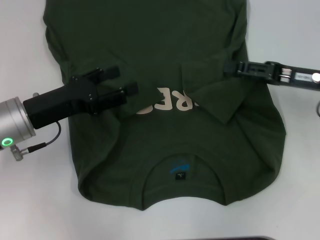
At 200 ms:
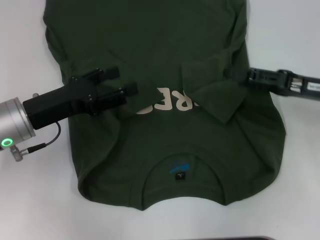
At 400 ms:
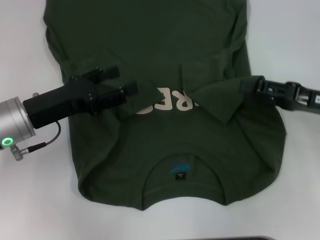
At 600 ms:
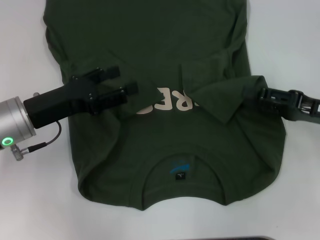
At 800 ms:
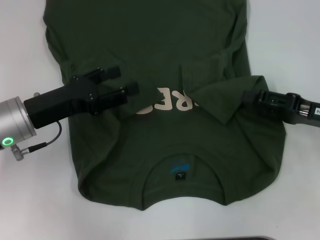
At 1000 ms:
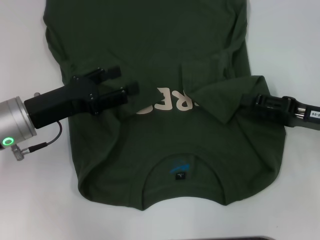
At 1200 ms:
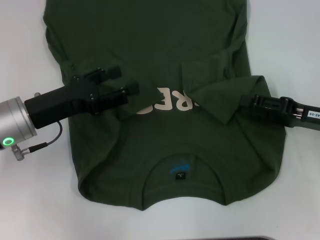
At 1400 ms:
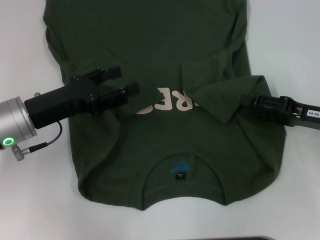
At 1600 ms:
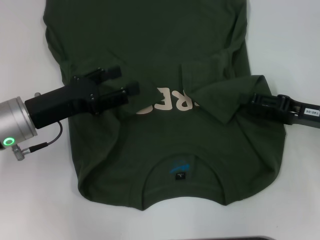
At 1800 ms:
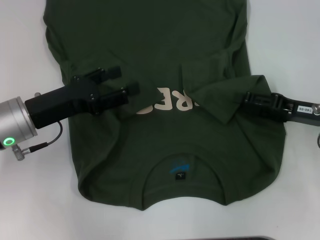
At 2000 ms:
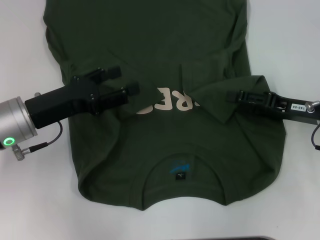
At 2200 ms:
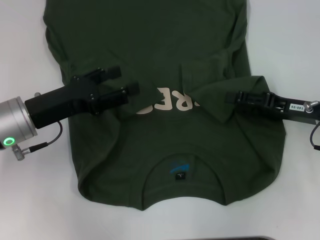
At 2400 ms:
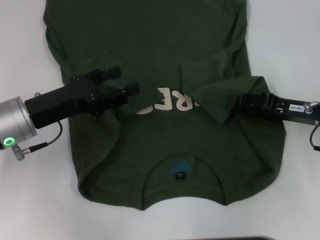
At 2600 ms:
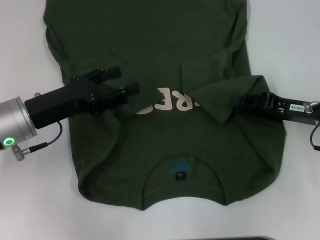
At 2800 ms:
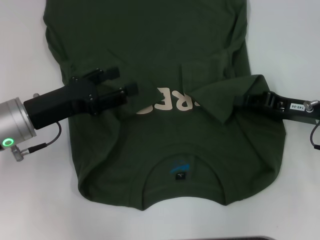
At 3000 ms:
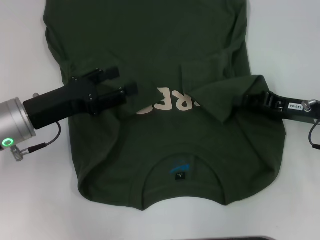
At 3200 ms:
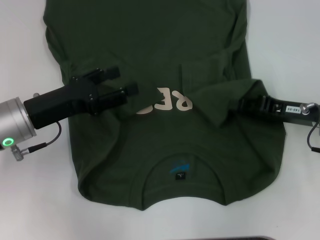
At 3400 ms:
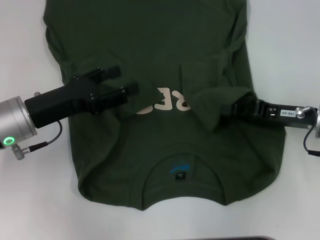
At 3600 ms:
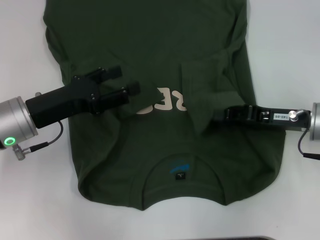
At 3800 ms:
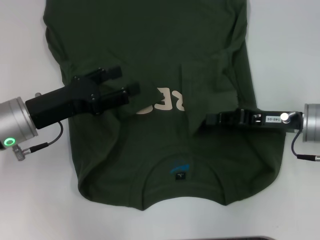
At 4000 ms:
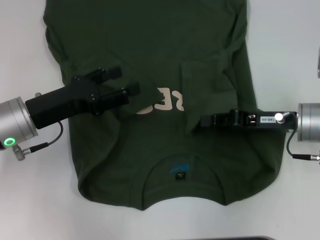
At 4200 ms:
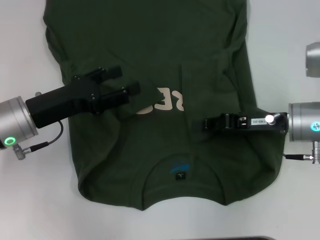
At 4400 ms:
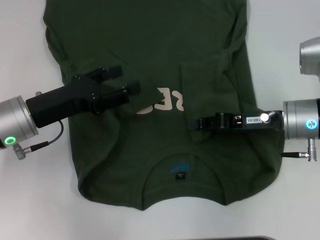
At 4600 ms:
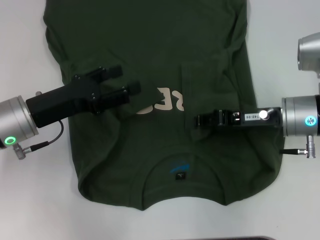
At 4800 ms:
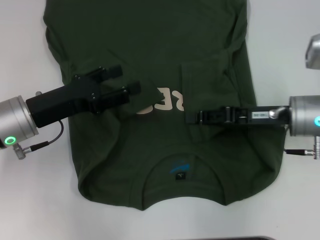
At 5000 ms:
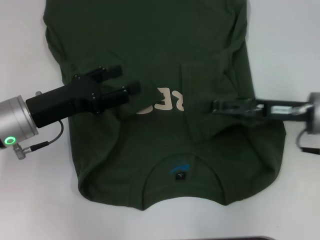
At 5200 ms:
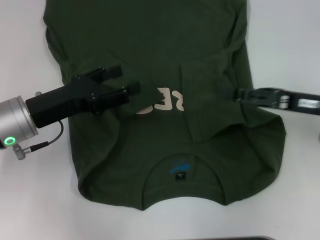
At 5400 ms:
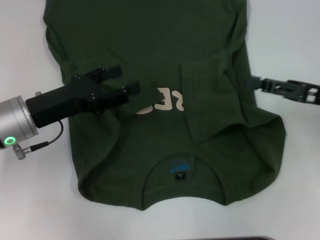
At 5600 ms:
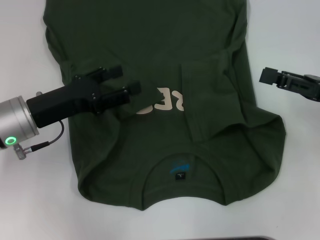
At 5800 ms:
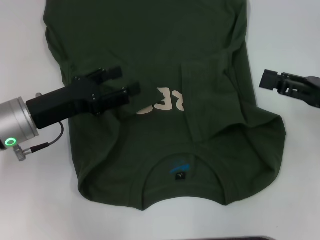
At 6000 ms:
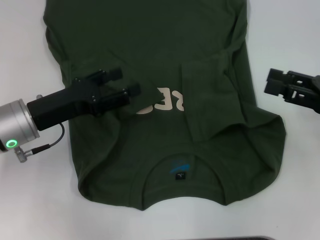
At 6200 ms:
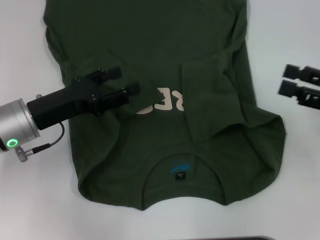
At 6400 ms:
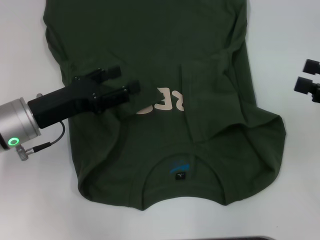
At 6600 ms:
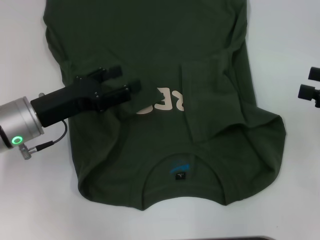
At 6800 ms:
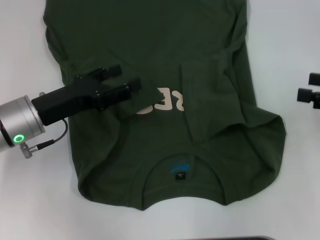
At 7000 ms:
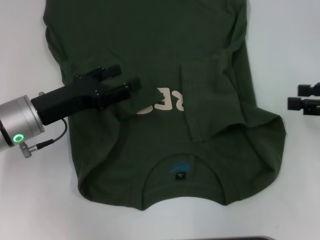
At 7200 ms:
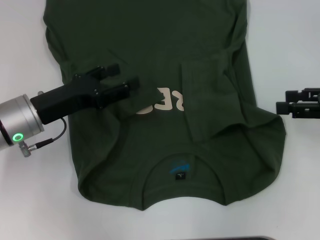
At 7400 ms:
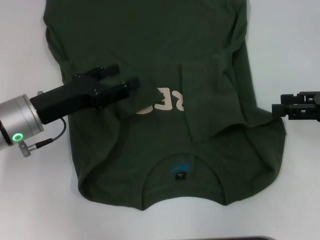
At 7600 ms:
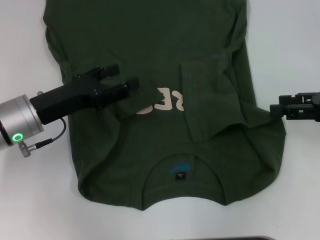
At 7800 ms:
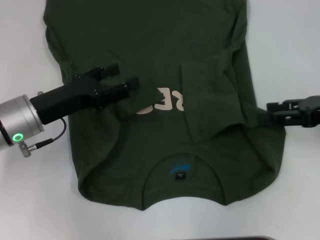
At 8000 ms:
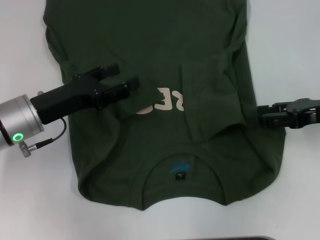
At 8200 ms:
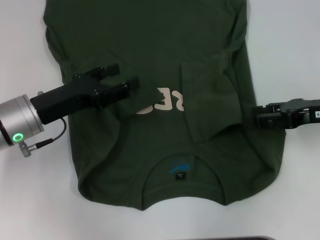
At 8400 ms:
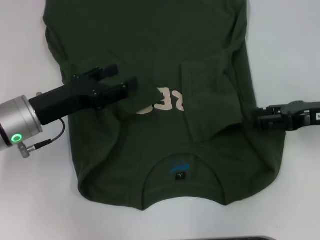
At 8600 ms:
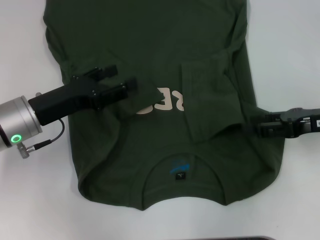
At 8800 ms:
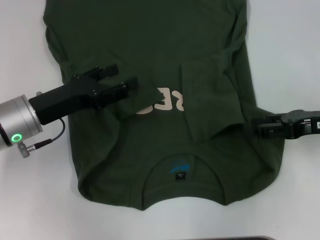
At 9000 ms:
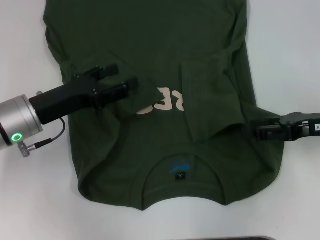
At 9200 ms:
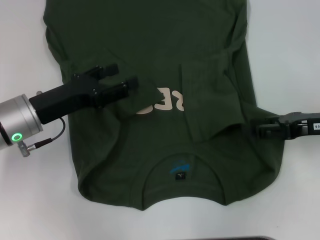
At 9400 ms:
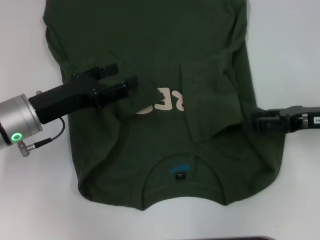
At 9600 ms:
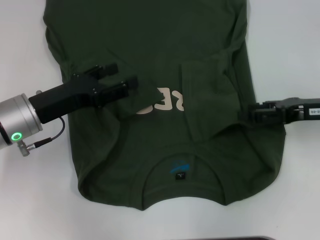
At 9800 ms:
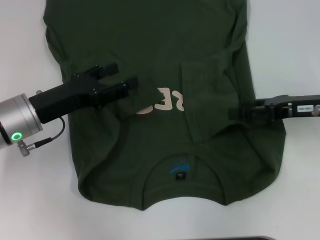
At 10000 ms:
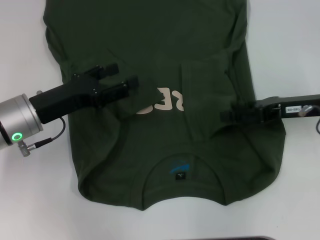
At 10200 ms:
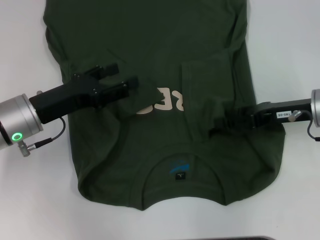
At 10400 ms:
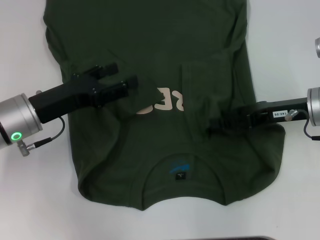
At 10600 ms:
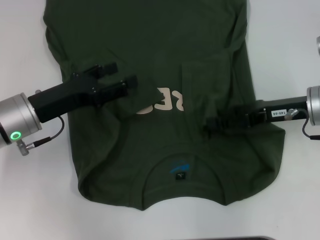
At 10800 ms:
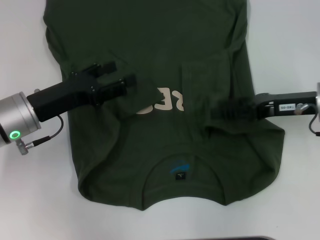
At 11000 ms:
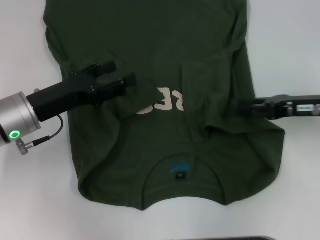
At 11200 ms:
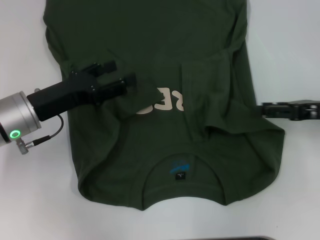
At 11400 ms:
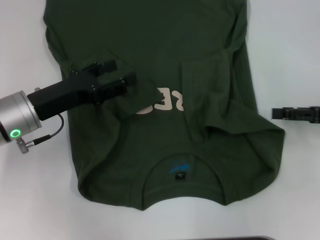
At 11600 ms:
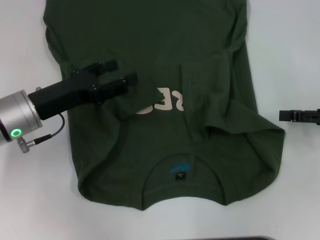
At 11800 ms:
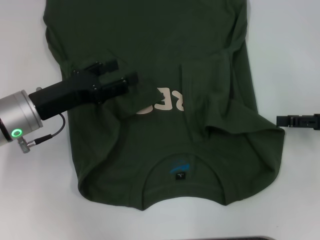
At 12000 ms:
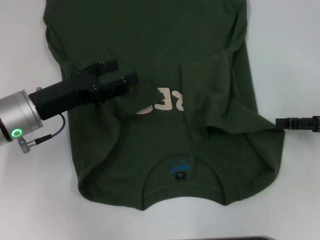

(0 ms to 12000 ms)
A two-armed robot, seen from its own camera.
Step, 0 ms - 5000 ms: Fold the bottom right sleeve with your right hand.
0 ms - 1600 ms: The right gripper shifts by approximately 5 cm.
1600 ms - 3000 ms: The right gripper closes up.
3000 ms - 4400 ms: The right gripper heads to the left, covering about 5 cm.
4400 ms - 6000 ms: The right gripper travels to the right, backward and upward by roughly 15 cm, and opens.
7600 ms - 9000 ms: The grippers move only a little.
9000 ms - 10400 ms: The right gripper shifts by about 5 cm.
10400 ms - 12000 ms: The right gripper goes roughly 10 cm to the right.

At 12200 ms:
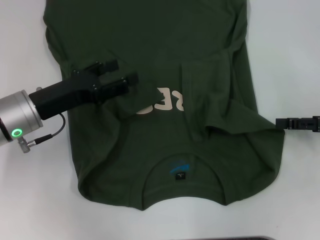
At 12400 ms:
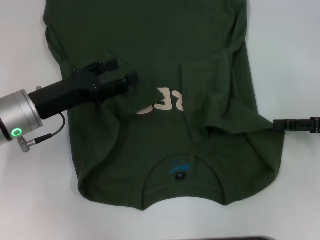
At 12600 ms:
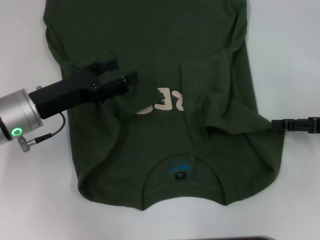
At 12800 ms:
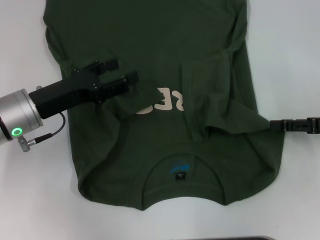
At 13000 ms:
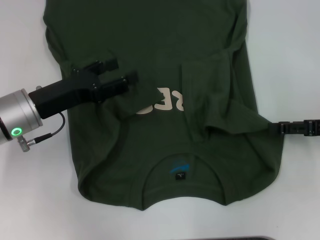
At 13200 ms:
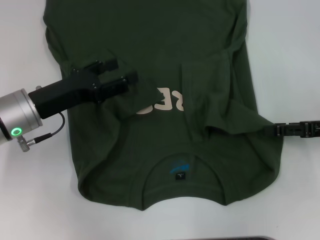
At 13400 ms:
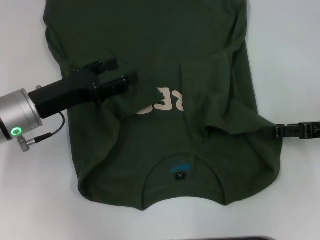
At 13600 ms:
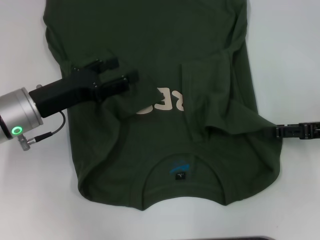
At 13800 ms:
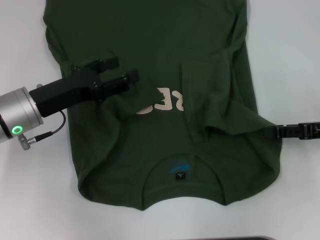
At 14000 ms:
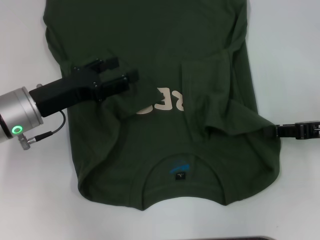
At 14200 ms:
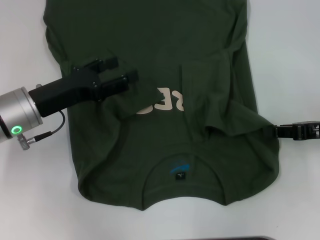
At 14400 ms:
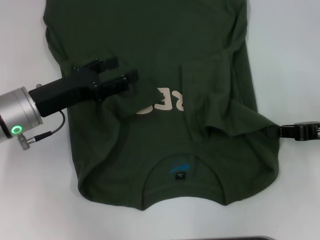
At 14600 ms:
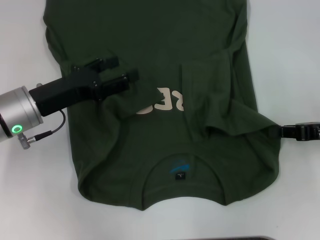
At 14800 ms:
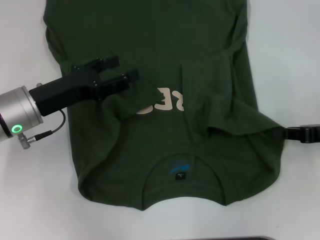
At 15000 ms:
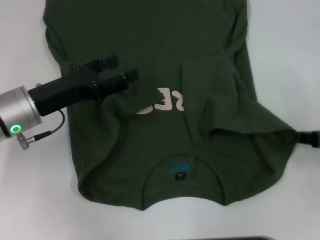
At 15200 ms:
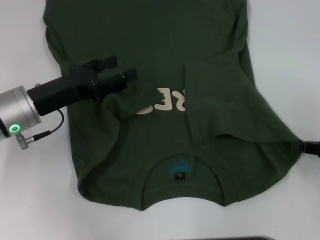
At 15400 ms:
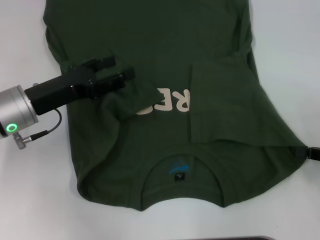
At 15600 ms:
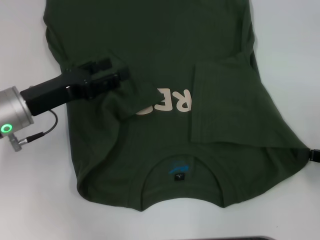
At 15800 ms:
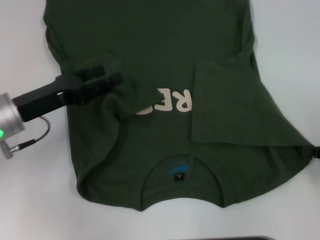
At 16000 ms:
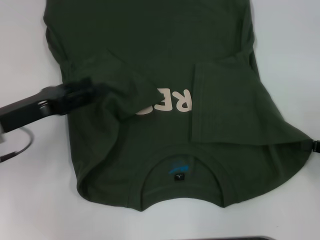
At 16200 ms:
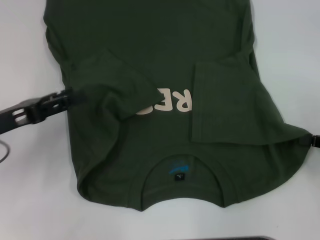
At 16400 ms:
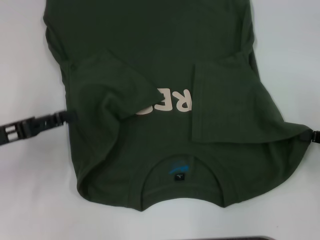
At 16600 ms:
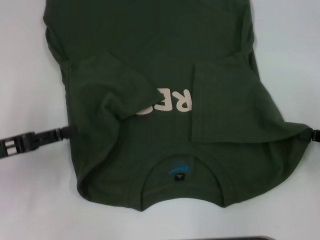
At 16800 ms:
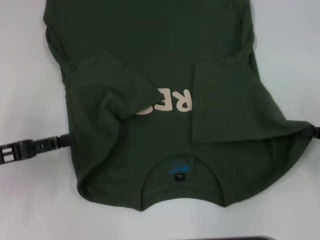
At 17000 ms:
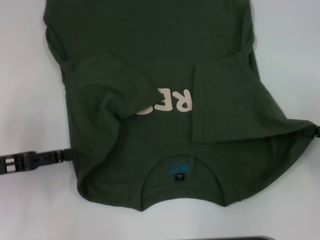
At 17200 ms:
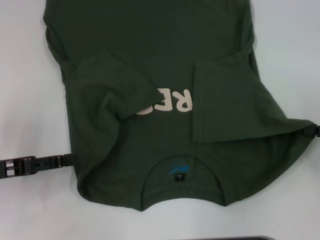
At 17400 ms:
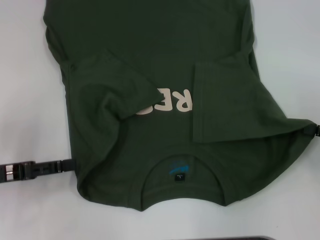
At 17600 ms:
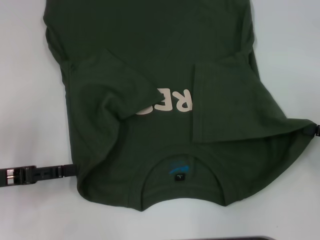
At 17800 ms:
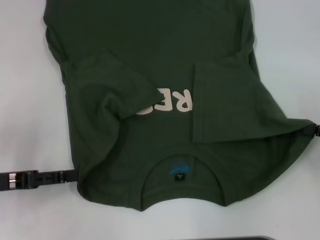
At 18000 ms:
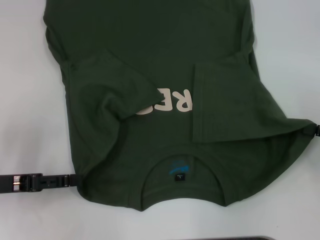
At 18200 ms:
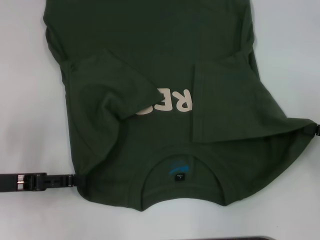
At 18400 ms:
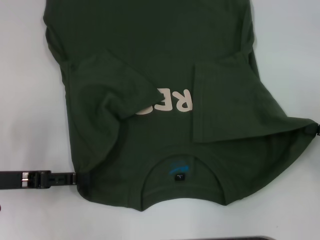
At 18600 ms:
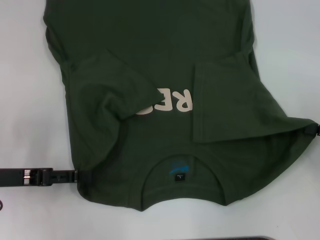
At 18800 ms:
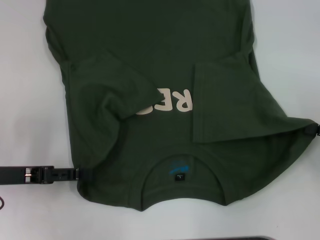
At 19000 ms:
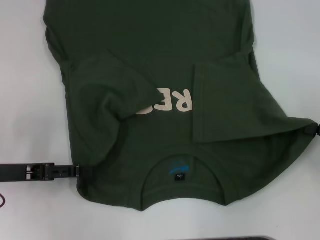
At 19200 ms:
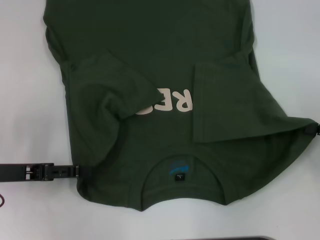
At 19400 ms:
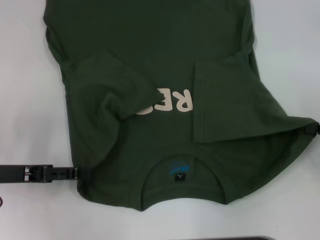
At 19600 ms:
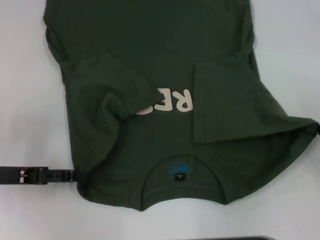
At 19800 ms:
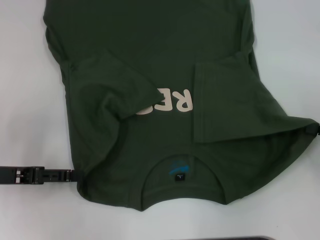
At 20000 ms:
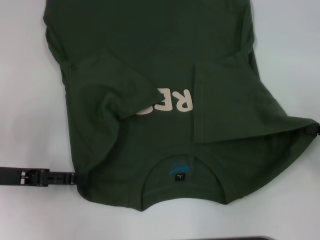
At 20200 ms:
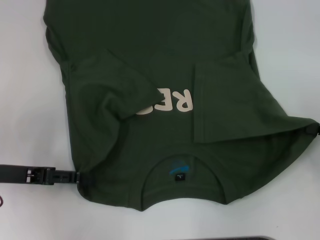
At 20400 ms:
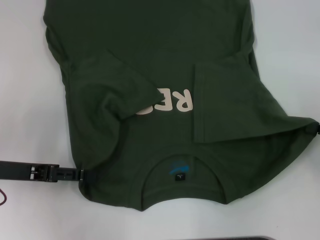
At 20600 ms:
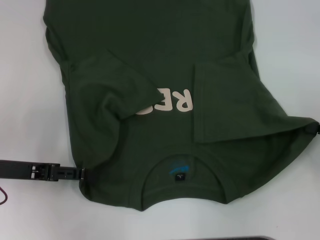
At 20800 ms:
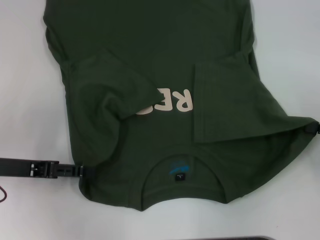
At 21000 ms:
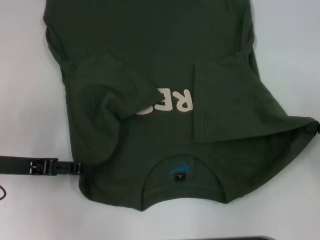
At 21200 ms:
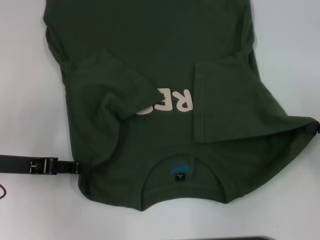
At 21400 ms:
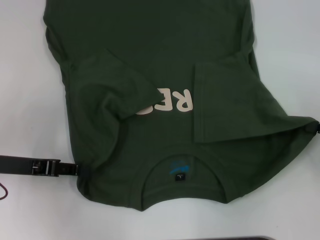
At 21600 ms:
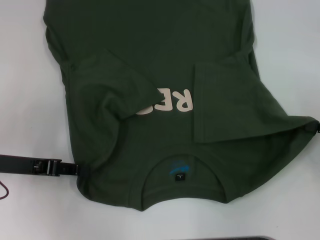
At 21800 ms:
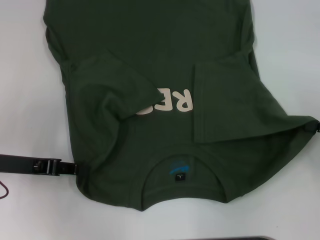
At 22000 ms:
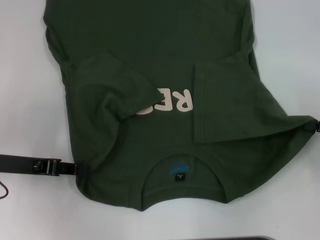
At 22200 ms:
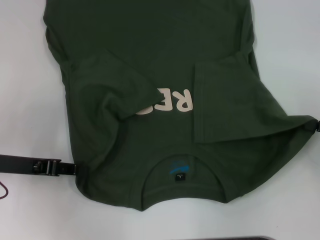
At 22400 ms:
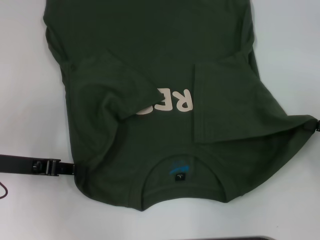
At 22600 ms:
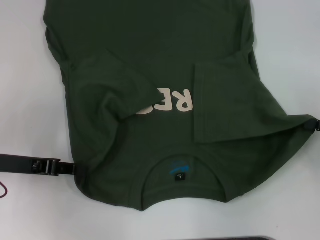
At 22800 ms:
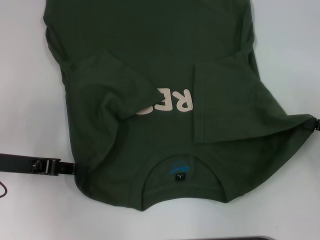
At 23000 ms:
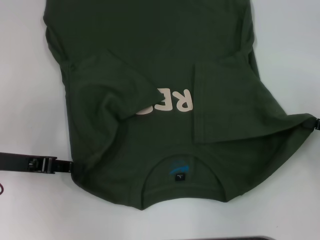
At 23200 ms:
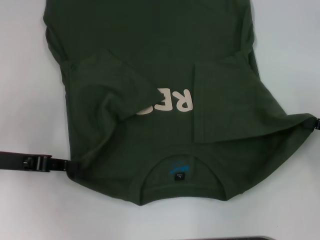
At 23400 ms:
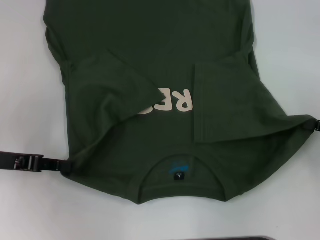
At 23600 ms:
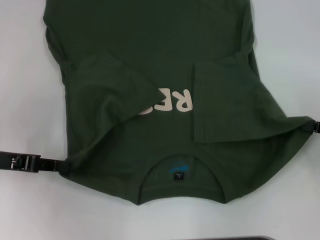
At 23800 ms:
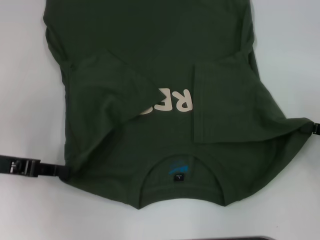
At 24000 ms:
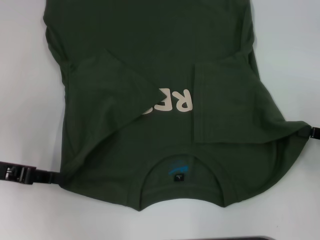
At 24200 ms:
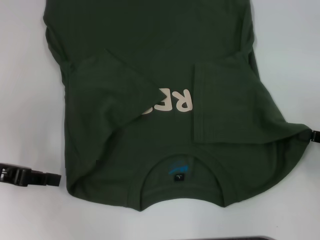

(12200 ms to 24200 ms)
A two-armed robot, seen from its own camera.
12200 ms - 13800 ms: The grippers move only a little.
13800 ms - 15200 ms: The right gripper moves about 5 cm, and closes.
15200 ms - 16600 ms: The left gripper heads to the left and backward, covering about 10 cm.
16600 ms - 18200 ms: The grippers make only small movements.
18200 ms - 21200 ms: The grippers move only a little.
21200 ms - 22600 ms: The left gripper closes.
22600 ms - 24200 ms: The grippers move only a little.
